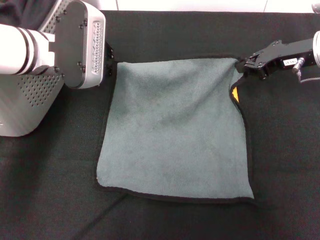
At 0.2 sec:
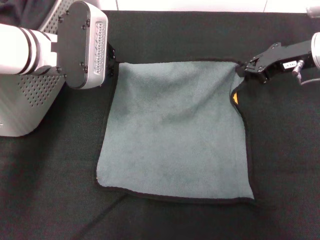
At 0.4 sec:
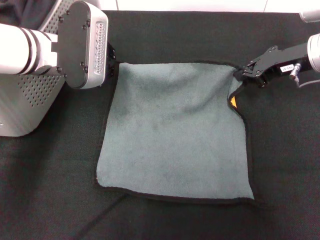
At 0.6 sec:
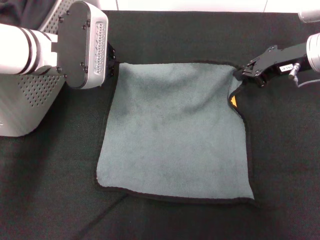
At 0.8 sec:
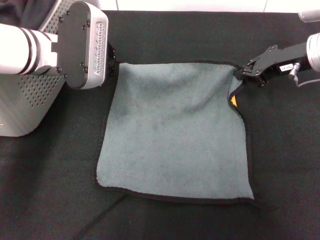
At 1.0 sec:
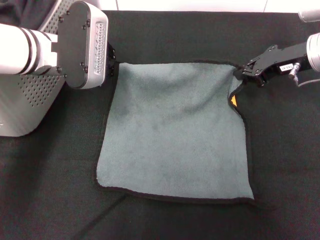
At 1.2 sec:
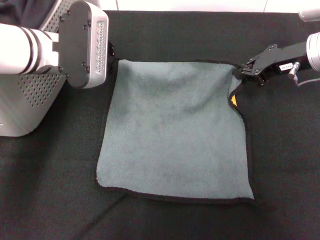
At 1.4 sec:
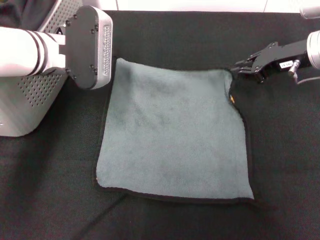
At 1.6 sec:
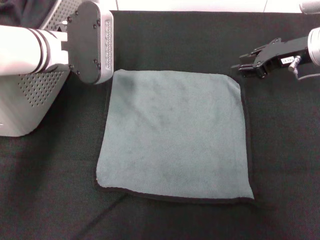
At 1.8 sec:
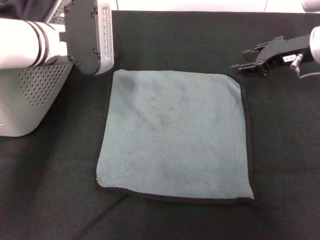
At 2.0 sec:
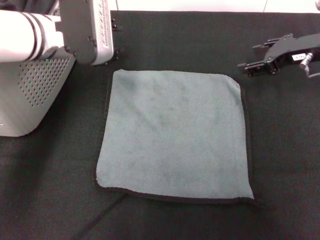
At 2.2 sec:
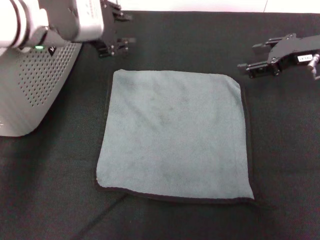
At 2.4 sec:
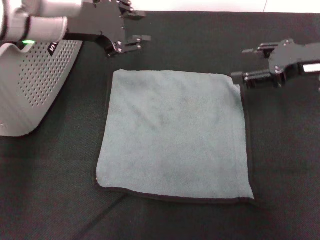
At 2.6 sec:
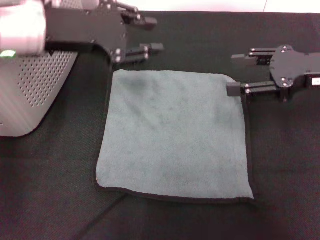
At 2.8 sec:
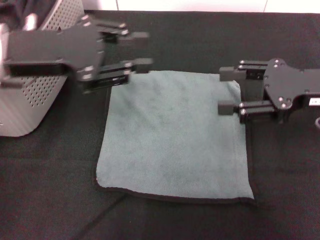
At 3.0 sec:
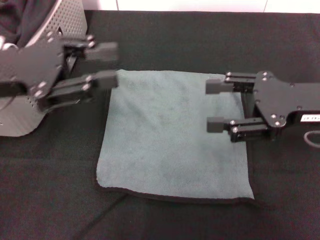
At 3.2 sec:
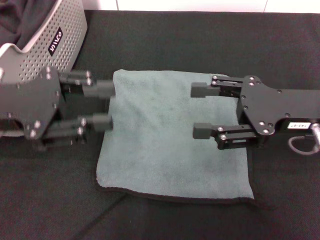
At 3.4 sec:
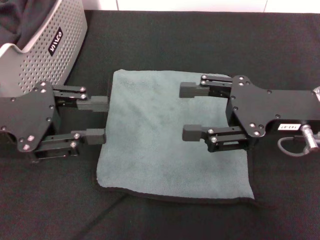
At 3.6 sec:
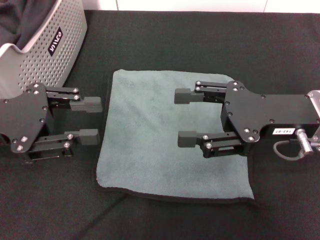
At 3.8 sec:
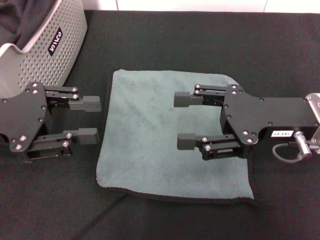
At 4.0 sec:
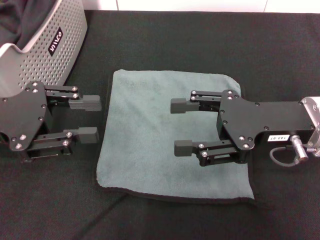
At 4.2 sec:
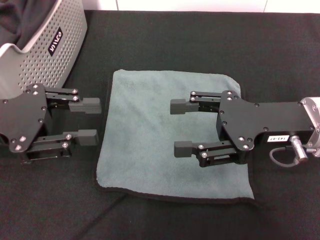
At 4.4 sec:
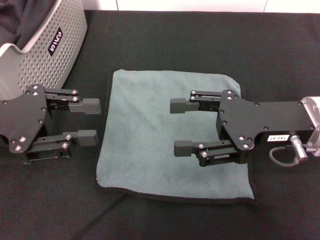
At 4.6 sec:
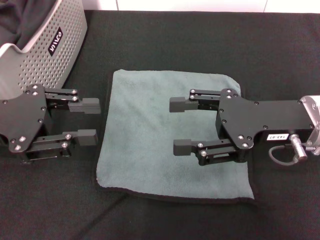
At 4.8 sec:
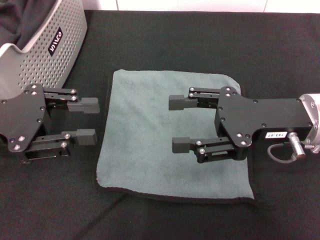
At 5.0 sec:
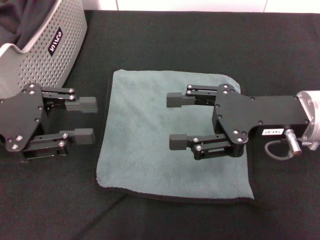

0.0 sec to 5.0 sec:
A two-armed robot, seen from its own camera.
Task of the whole recording: pick up the towel from the storage box and lay it flat on the black tablecloth.
0.0 sec to 1.6 sec: The grippers make only small movements.
1.6 sec to 3.4 sec: The left gripper goes some 15 cm backward and to the left, and opens. The right gripper moves backward, roughly 15 cm, and opens up.
3.4 sec to 5.0 sec: There are only small adjustments of the grippers.
